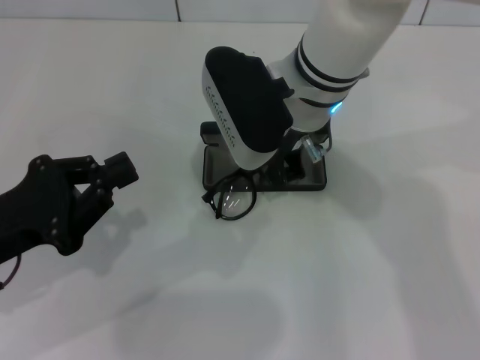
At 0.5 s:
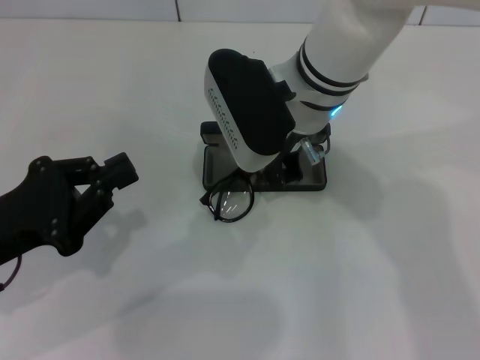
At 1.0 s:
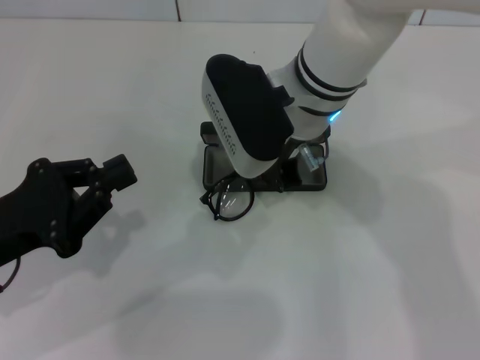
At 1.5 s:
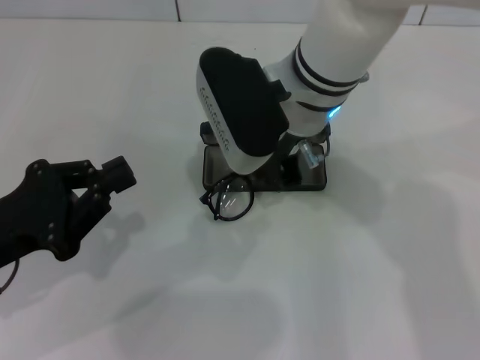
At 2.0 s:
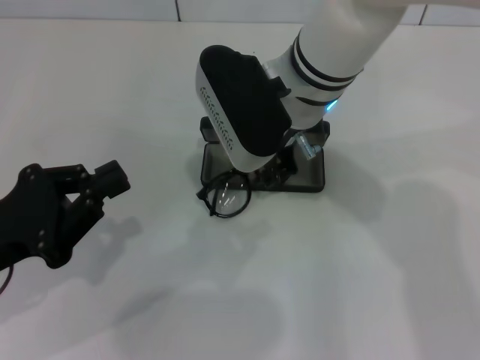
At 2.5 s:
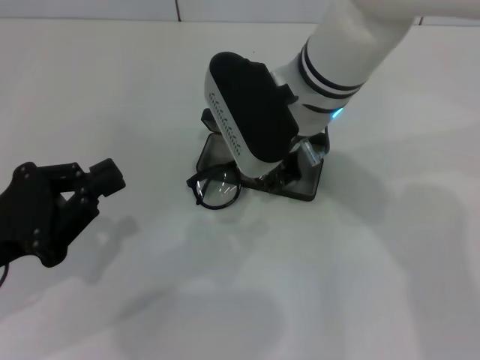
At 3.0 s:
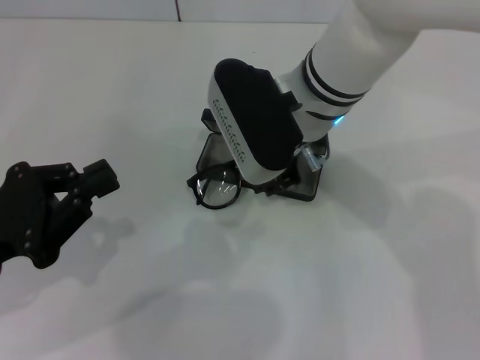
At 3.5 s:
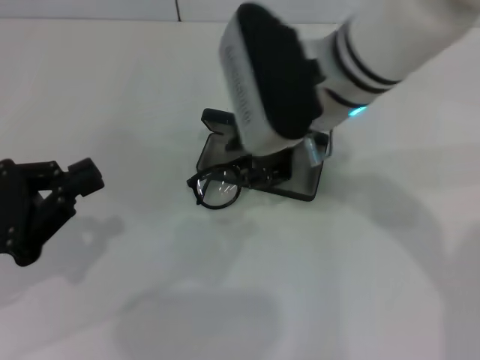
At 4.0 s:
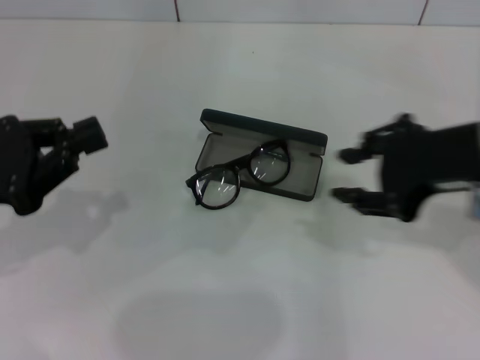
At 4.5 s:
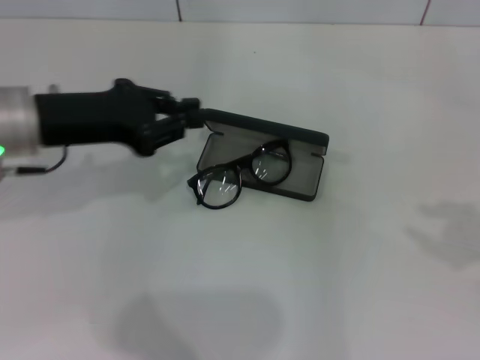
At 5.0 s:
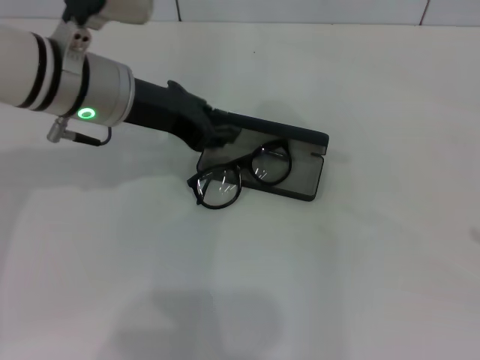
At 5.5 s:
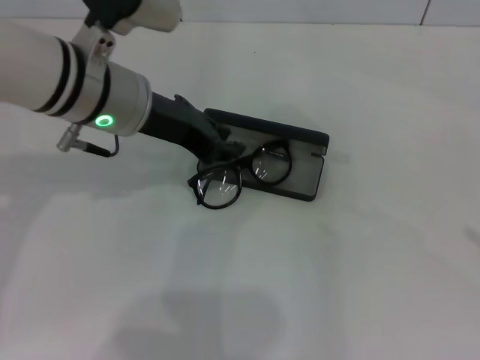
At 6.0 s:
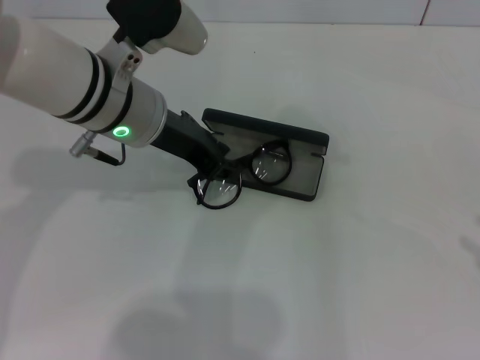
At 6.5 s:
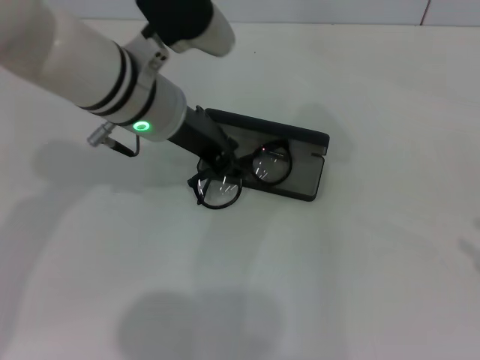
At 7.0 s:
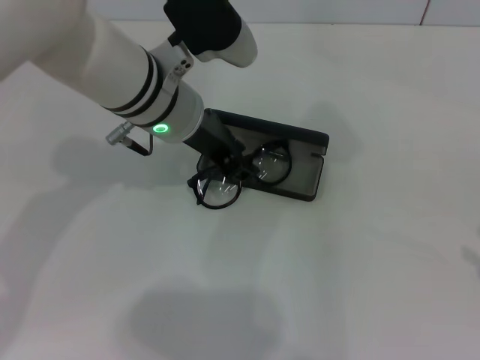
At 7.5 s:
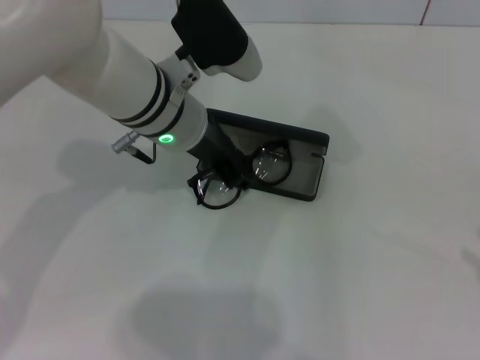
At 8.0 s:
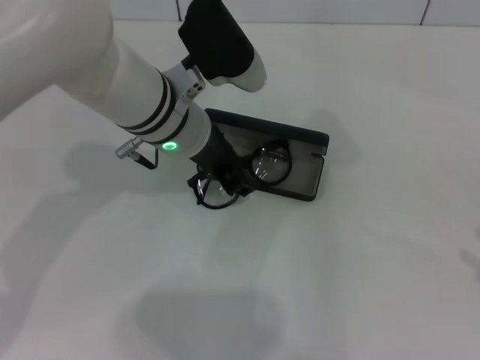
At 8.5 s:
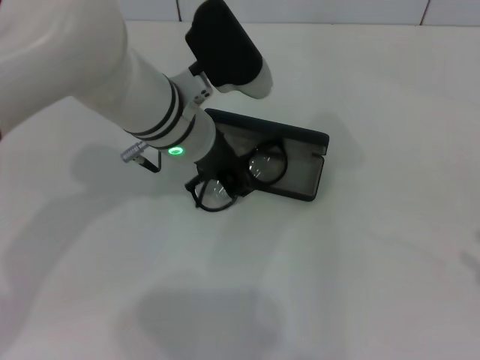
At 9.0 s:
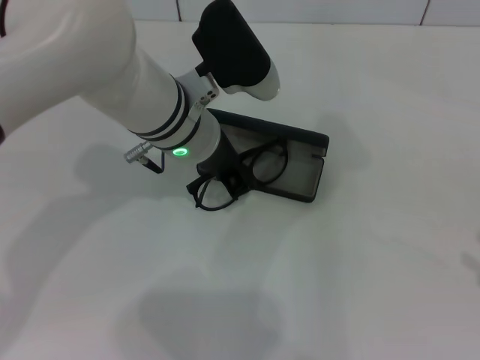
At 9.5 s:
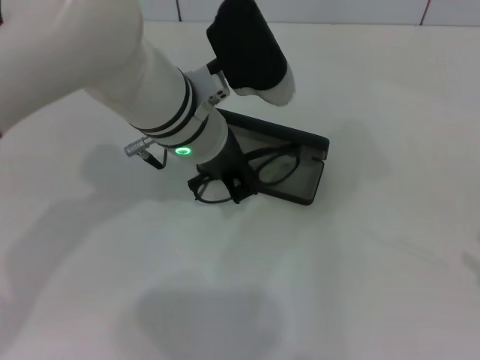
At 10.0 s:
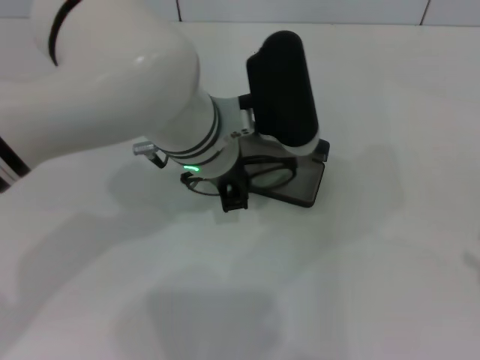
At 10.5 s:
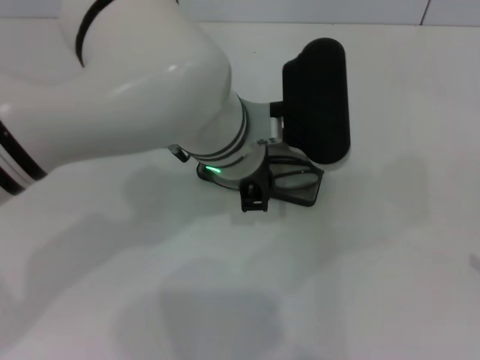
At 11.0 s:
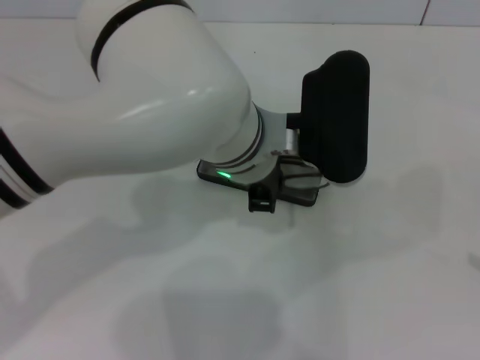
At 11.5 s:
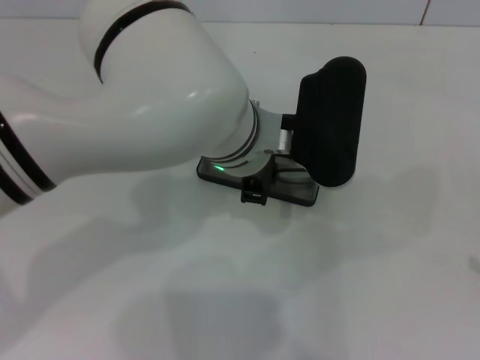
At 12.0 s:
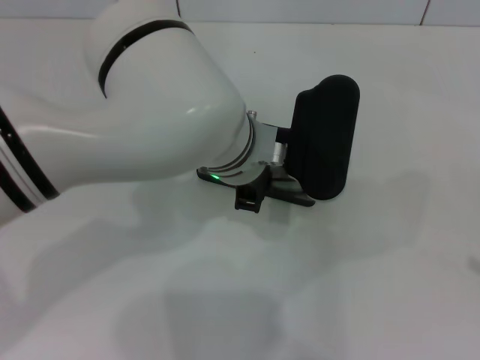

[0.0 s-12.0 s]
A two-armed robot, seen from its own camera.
0.0 to 2.0 s: Both grippers stay about where they are.
2.0 to 4.0 s: The right gripper goes about 20 cm to the right and backward; the left gripper changes place by some 5 cm.
4.0 to 6.0 s: The right gripper goes roughly 25 cm to the right and backward, while the left gripper is displaced to the right and forward by roughly 20 cm, and opens its fingers.
6.0 to 8.0 s: The left gripper changes place by roughly 5 cm.
8.0 to 10.0 s: The left gripper shifts by approximately 5 cm, and closes.
10.0 to 12.0 s: The grippers stay close to where they were, moving slightly.

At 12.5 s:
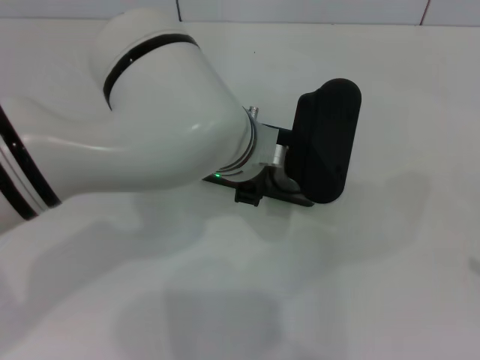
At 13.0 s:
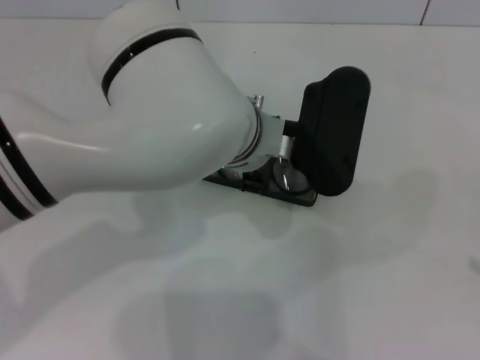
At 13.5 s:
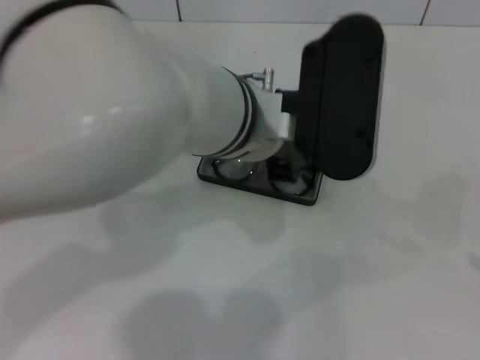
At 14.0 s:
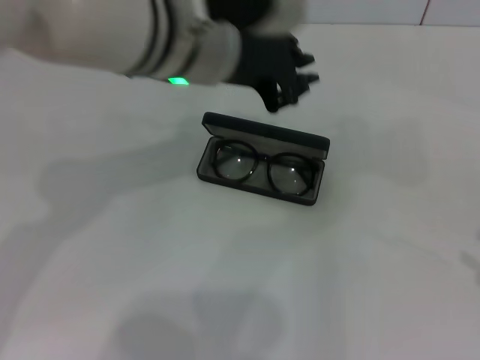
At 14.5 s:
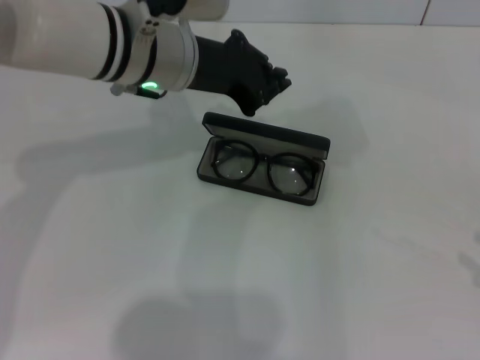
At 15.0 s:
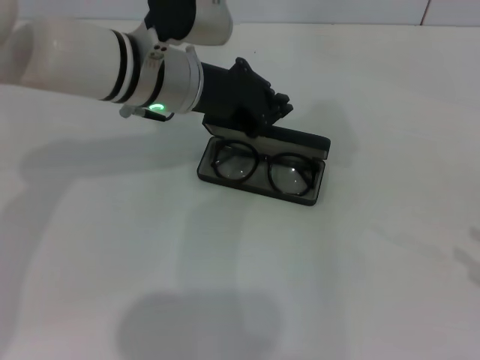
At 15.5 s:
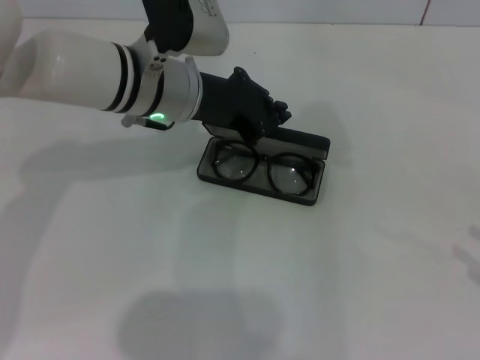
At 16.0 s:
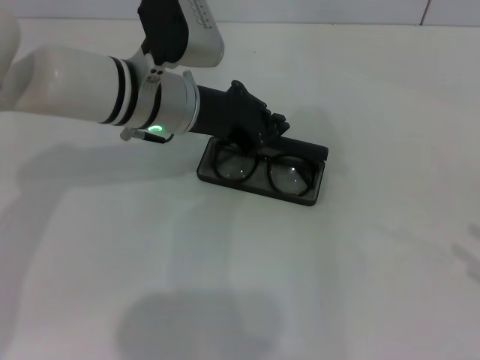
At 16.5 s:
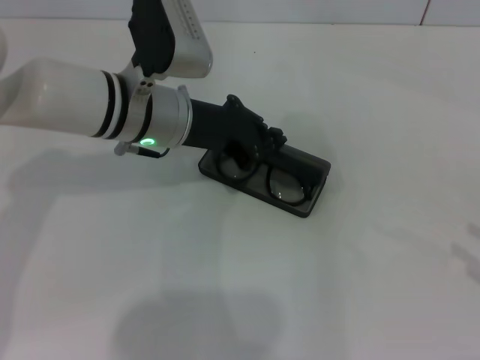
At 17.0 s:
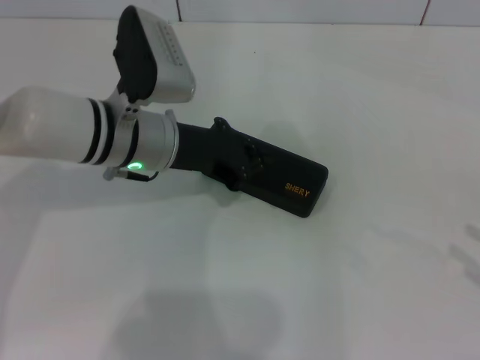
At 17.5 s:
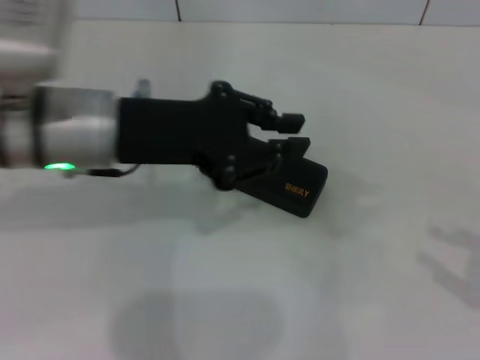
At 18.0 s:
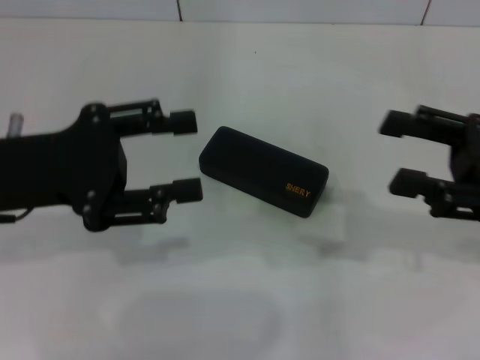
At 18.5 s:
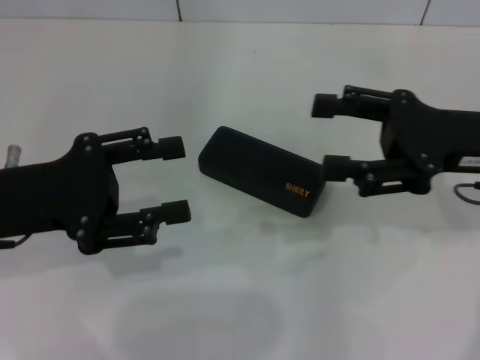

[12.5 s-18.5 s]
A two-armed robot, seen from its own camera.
Step, 13.5 to 17.0 s: Close the glasses case with your left hand.
12.5 to 14.5 s: The left gripper shifts approximately 10 cm to the left and forward.
14.5 to 16.5 s: The left gripper heads downward, covering approximately 5 cm.
16.5 to 18.5 s: The right gripper is displaced to the left and forward by roughly 25 cm, and opens up, while the left gripper shifts about 20 cm to the left and backward, and opens.
